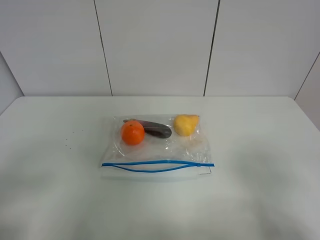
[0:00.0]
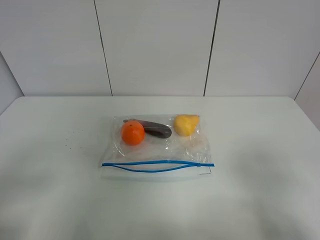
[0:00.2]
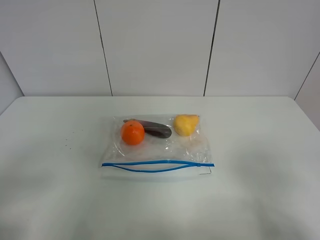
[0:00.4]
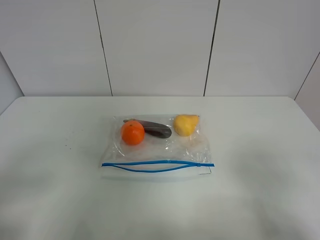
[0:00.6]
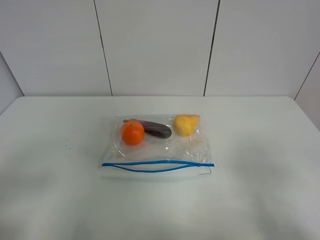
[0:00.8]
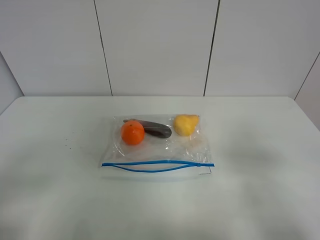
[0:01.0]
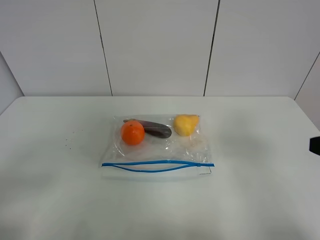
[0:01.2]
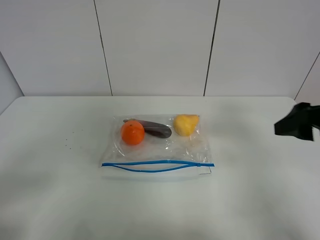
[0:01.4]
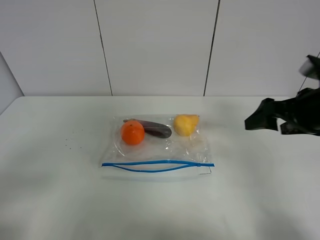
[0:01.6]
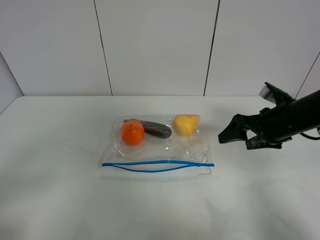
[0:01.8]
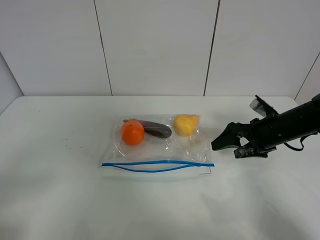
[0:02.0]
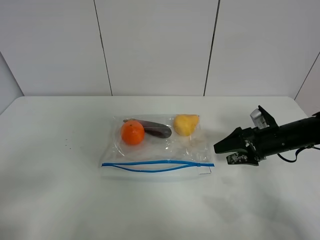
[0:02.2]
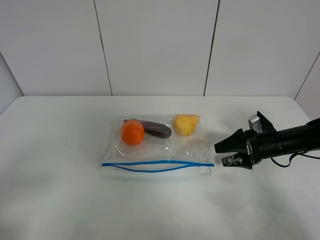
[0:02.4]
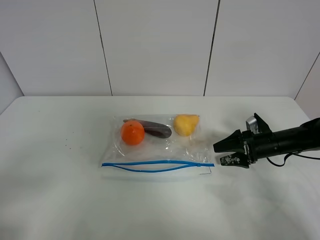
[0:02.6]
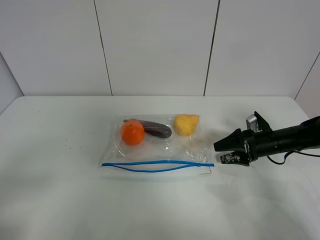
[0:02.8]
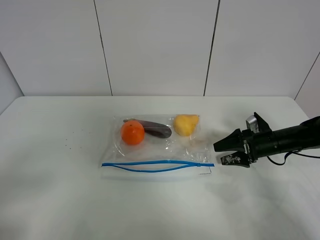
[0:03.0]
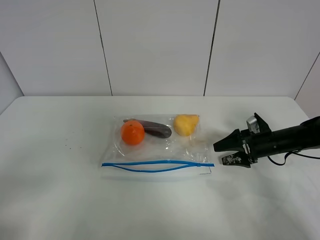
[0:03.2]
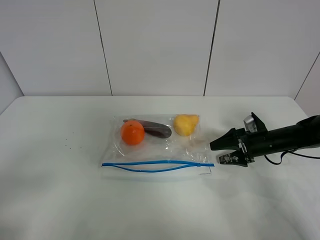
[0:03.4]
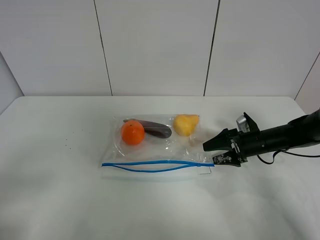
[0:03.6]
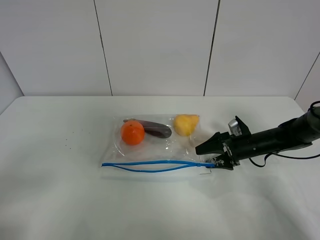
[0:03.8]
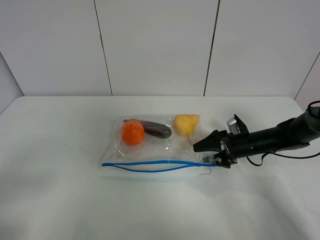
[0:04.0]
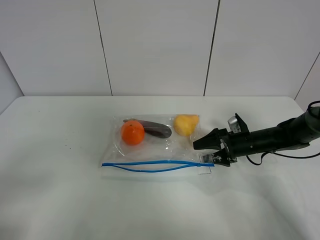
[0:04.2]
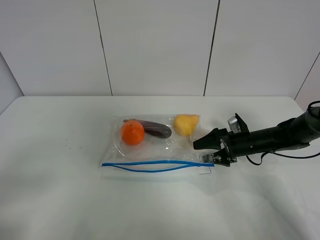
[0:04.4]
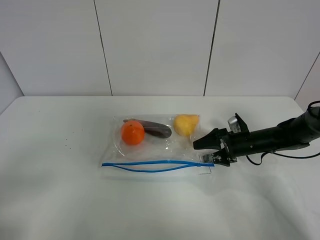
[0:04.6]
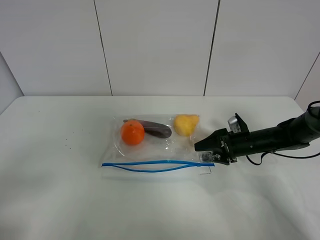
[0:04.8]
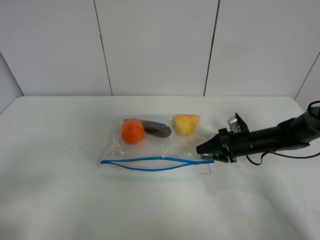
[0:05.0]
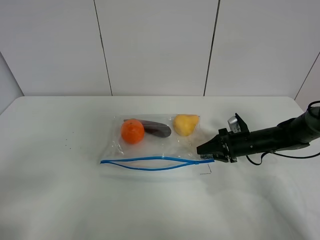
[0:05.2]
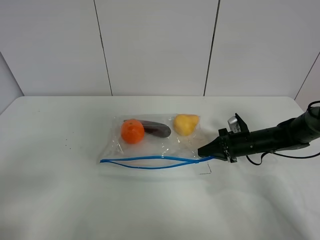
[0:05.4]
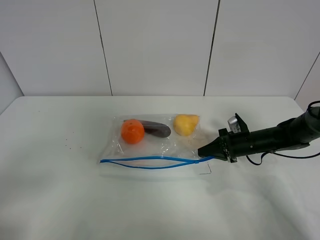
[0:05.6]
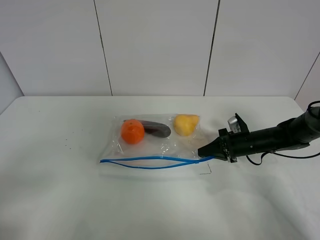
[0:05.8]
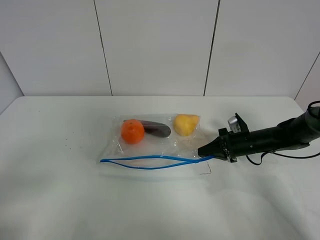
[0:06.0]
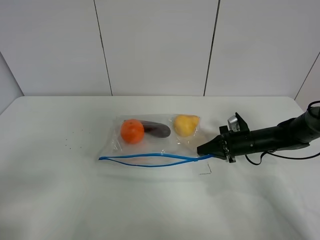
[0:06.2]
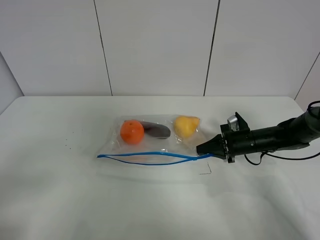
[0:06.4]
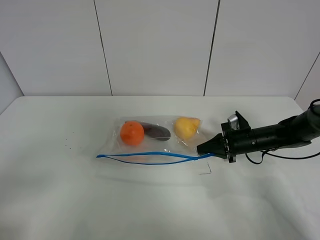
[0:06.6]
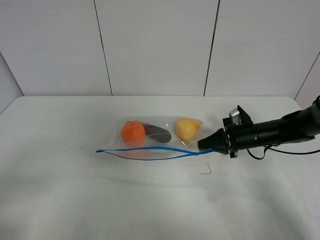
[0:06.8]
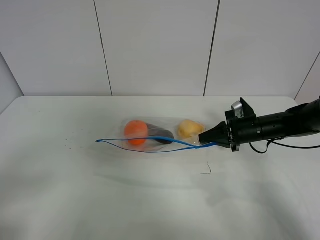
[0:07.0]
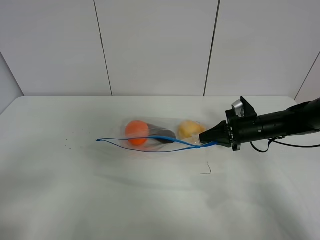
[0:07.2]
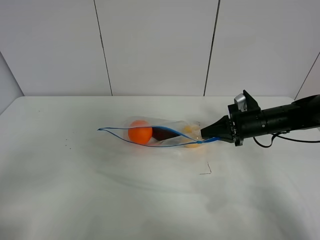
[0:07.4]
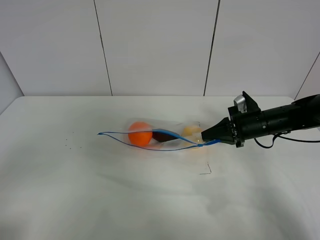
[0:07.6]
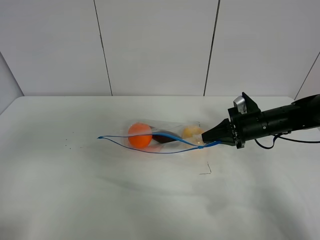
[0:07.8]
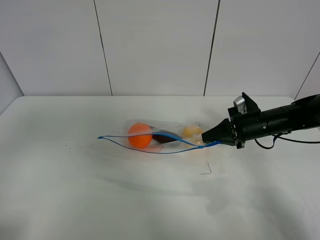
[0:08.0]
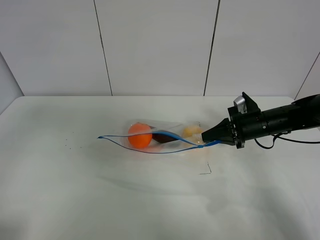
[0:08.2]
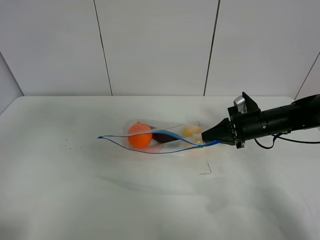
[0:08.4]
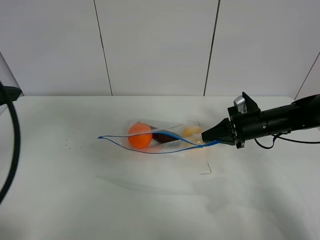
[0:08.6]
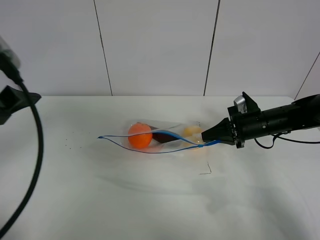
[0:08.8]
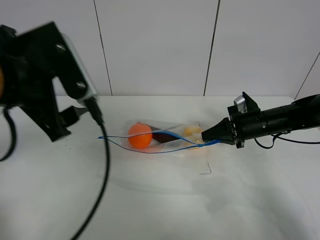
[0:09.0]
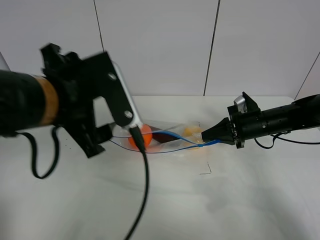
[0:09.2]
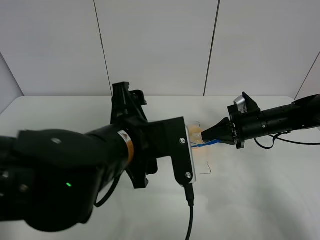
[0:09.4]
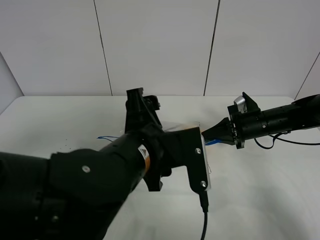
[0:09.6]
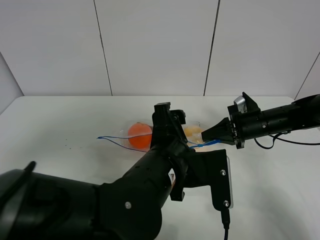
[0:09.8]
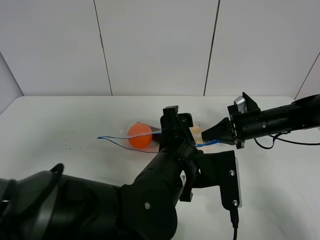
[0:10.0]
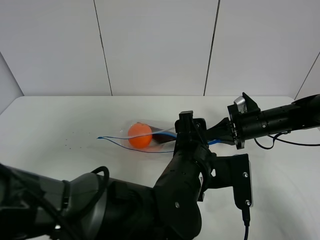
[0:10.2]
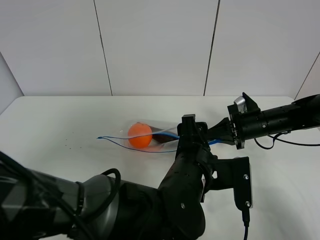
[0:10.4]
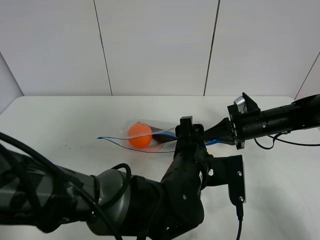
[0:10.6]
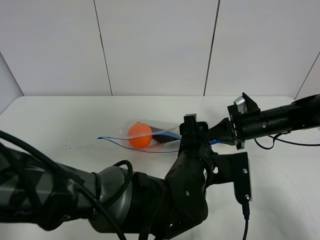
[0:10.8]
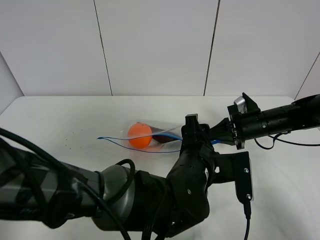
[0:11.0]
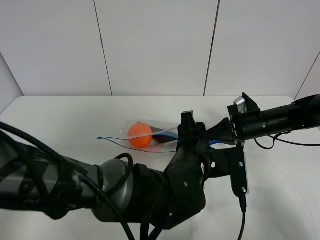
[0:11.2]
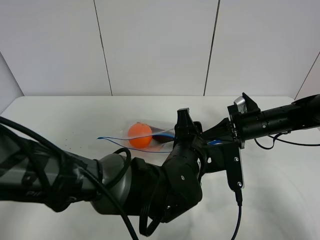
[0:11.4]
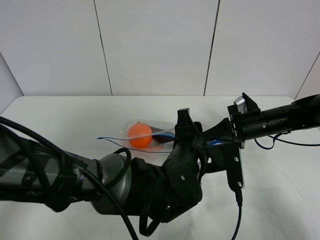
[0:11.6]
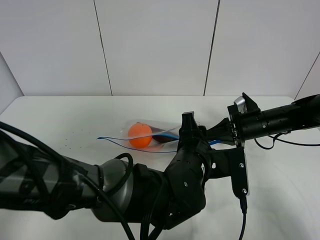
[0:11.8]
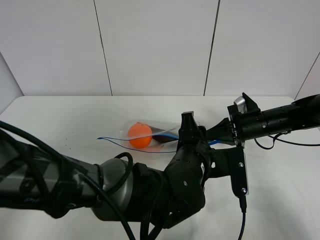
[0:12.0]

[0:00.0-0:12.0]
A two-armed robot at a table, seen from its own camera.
Step, 0:00.0 to 0:05.4: Grasp the fruit bag with right gripper.
Step, 0:05.6 to 0:07.8: Lift the fruit bag with your right gripper.
0:00.0 to 0:01.6: The right gripper shifts roughly 25 cm forward.
0:01.6 to 0:03.0: The right gripper moves downward and forward, approximately 20 cm.
0:03.0 to 0:04.4: The right gripper moves approximately 5 cm.
0:04.4 to 0:06.0: The right gripper closes up.
0:06.0 to 0:07.6: The right gripper moves upward, approximately 10 cm. Meanwhile the left gripper moves some 5 cm.
0:07.6 to 0:09.0: The left gripper moves forward and to the right, some 25 cm.
0:09.0 to 0:10.4: The left gripper travels to the right and downward by approximately 25 cm.
0:10.4 to 0:12.0: The grippers make only small movements.

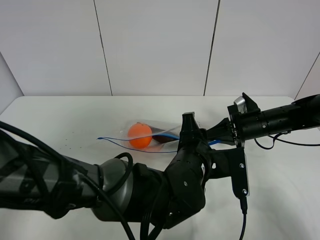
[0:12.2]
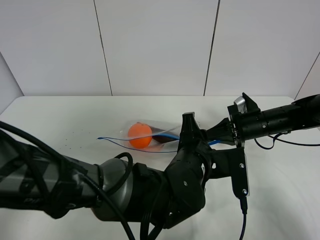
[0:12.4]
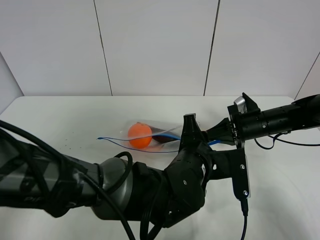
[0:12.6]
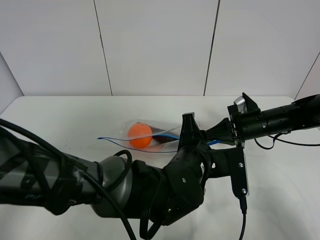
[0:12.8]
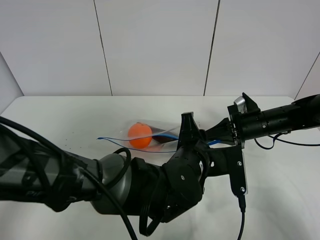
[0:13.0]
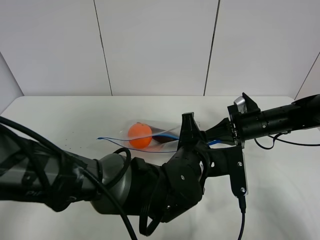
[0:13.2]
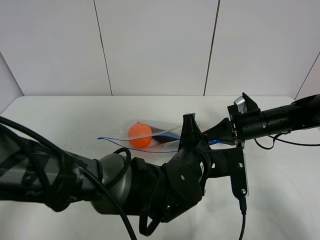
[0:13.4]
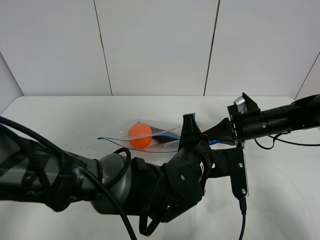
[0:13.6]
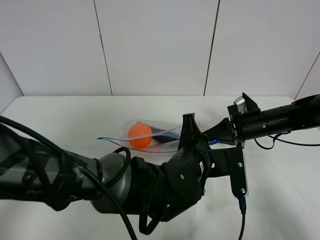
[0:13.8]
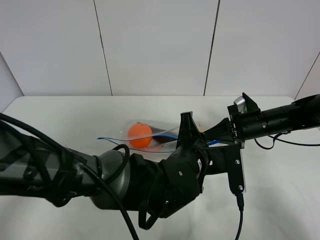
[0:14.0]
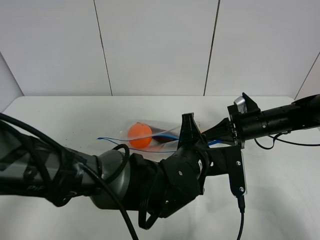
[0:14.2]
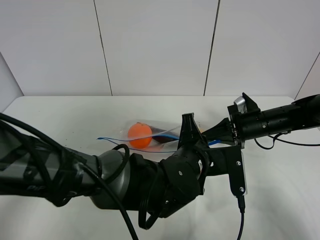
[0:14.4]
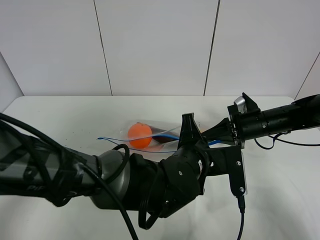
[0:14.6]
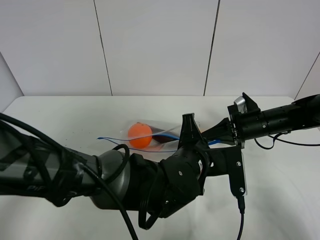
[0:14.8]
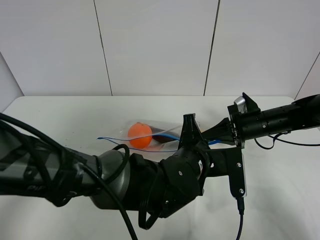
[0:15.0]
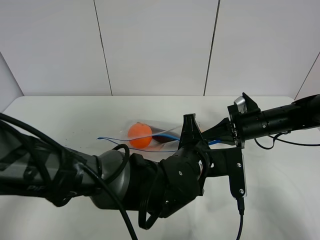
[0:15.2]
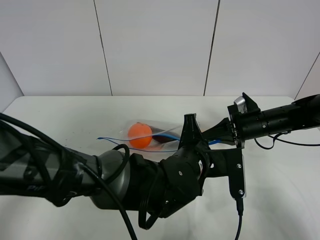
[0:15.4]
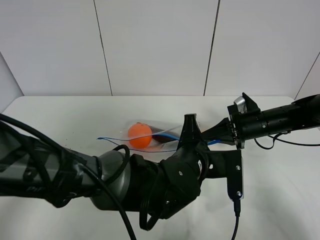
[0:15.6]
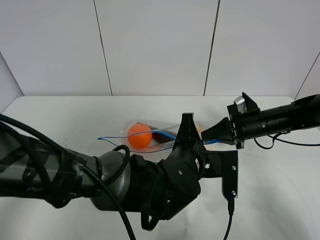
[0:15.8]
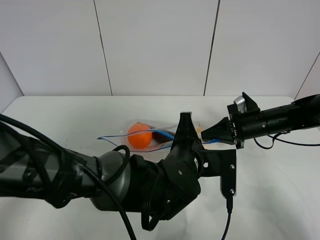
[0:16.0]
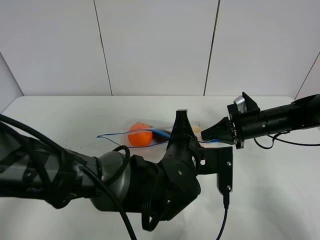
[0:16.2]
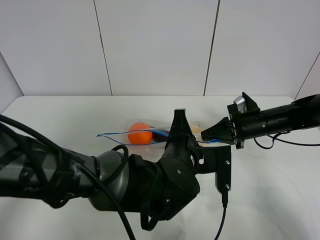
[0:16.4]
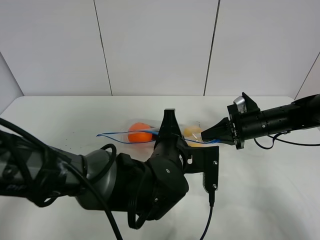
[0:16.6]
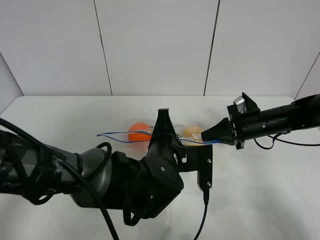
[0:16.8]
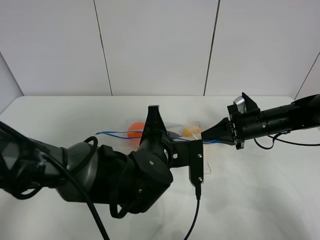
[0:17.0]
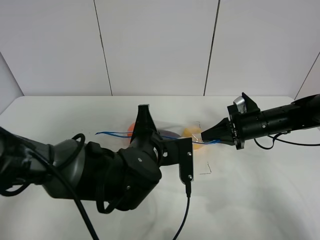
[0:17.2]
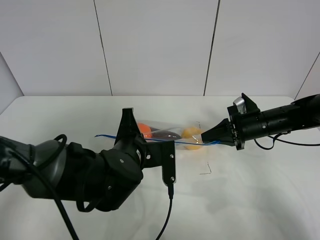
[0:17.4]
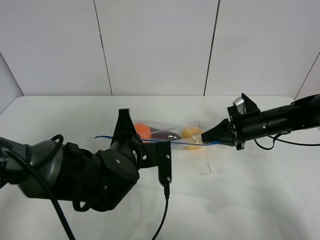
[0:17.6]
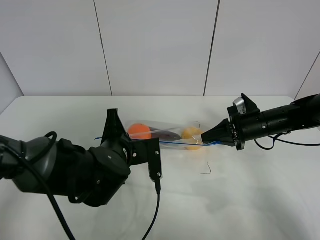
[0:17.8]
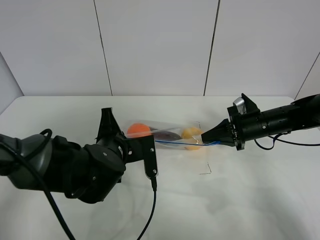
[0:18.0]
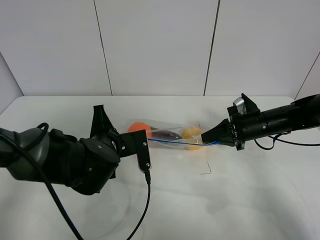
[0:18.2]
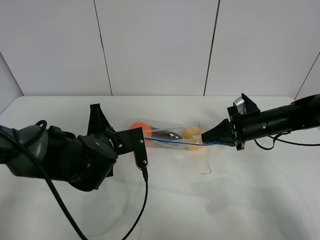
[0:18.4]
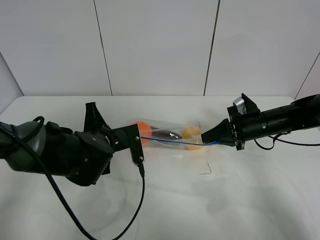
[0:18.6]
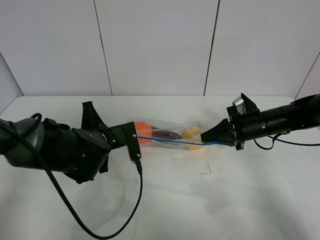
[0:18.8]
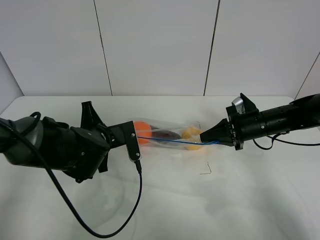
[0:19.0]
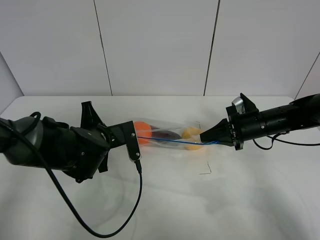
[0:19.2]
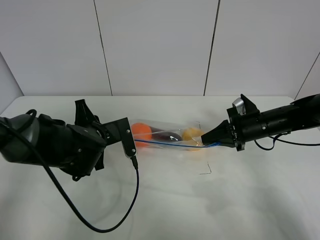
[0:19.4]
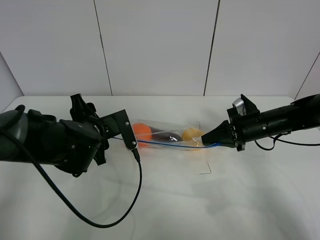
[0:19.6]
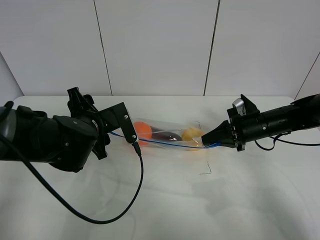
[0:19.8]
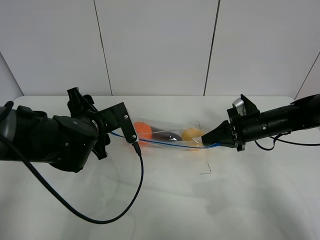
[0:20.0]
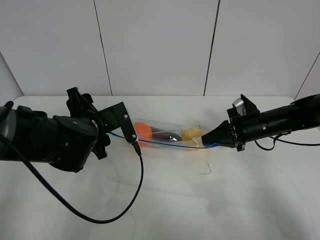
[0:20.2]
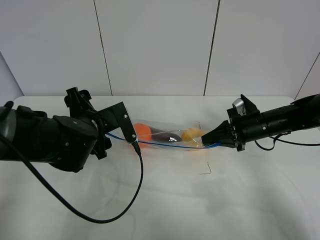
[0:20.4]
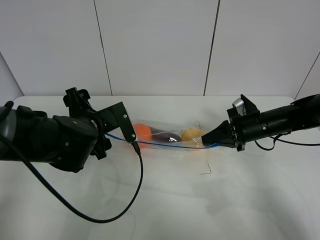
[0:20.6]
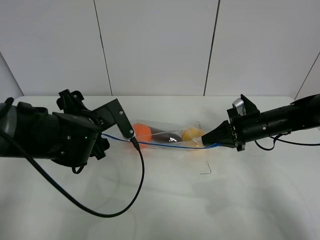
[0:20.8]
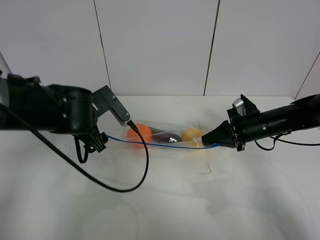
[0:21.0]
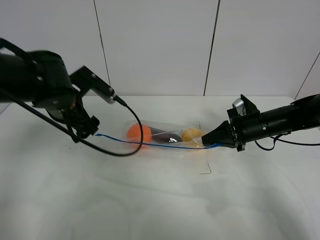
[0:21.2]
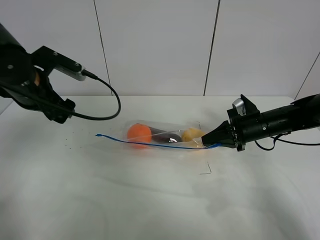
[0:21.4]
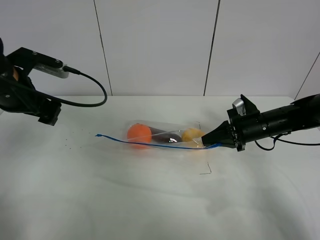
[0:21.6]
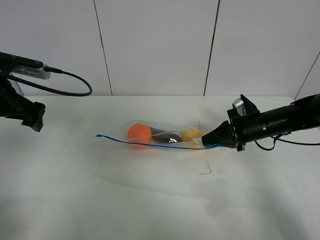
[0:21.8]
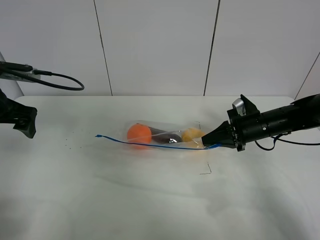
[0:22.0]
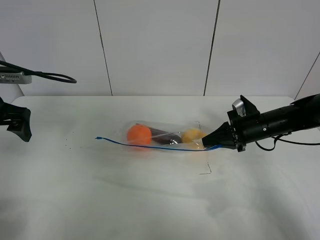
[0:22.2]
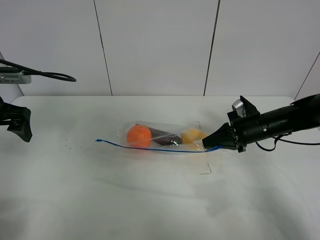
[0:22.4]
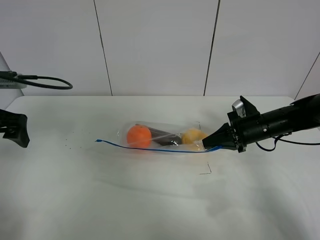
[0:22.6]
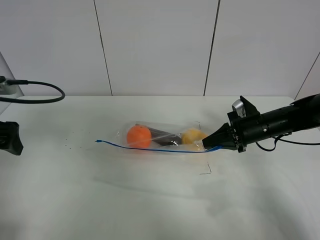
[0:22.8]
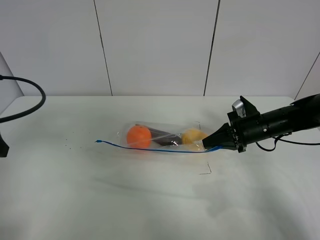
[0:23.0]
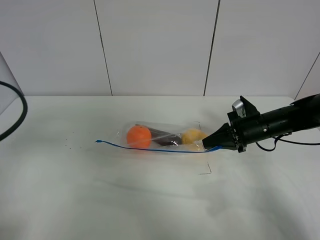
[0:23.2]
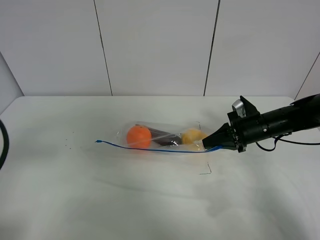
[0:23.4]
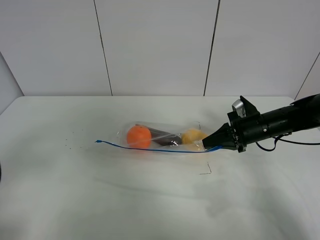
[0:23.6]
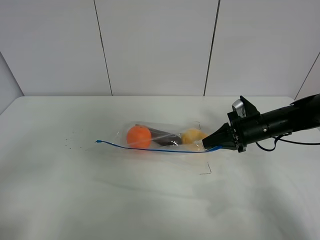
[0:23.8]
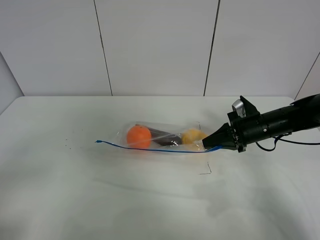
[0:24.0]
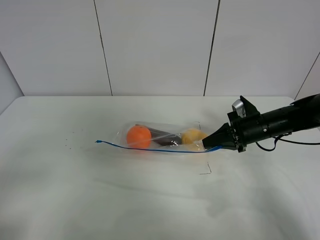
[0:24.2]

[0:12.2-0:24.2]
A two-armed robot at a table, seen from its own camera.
Step, 0:12.2 to 0:19.6: Pull the fruit bag with left gripper.
0:12.2 to 0:15.2: The two grippers keep their place.
0:15.2 to 0:16.6: The grippers stay close to where they were, moving slightly.
0:16.6 to 0:18.2: The left gripper is displaced to the left by approximately 10 cm.
0:18.2 to 0:19.8: The left gripper opens up.
0:19.8 to 0:21.2: The left gripper goes some 10 cm upward and to the left.
0:21.2 to 0:22.6: The left gripper is displaced to the left and backward by about 15 cm.
0:22.6 to 0:24.2: The left gripper shifts approximately 20 cm backward.
